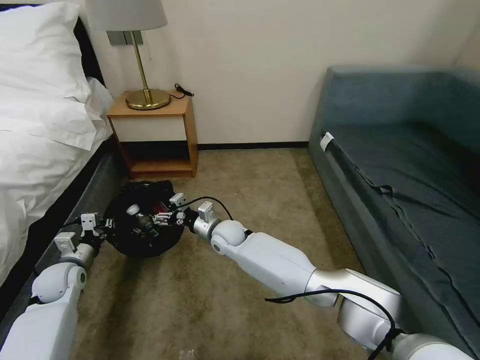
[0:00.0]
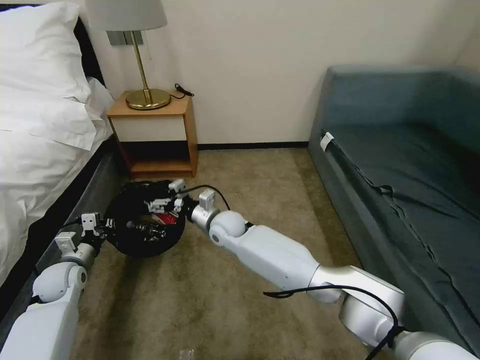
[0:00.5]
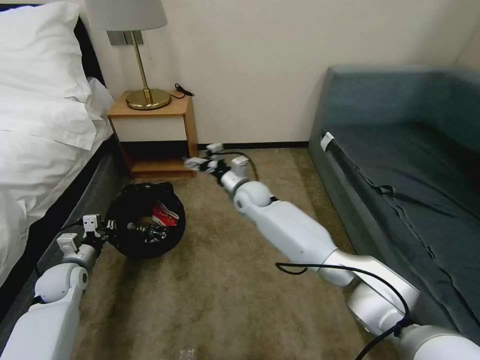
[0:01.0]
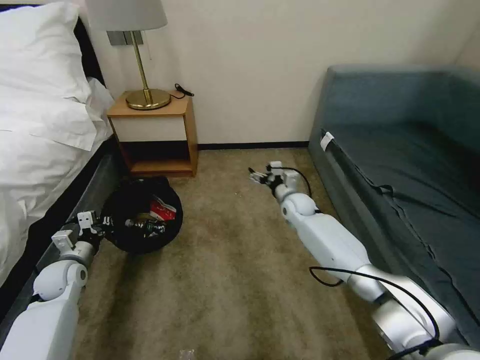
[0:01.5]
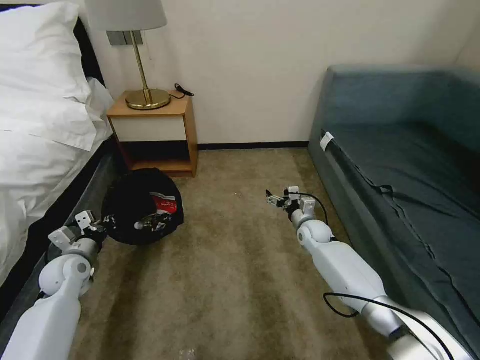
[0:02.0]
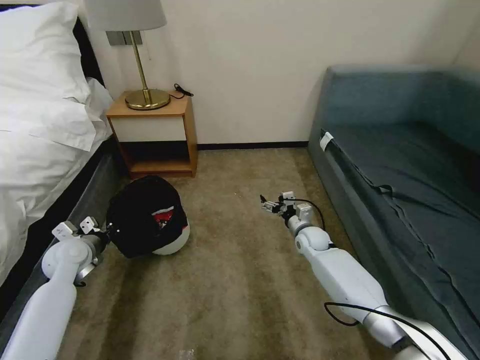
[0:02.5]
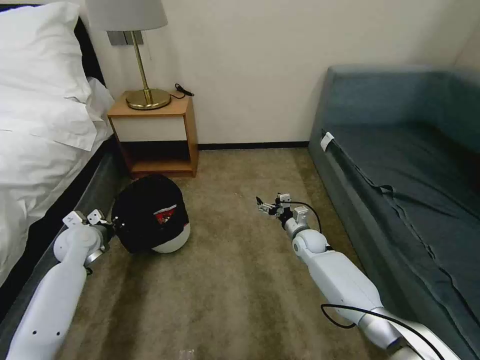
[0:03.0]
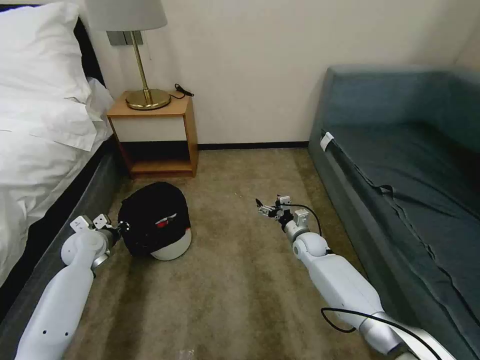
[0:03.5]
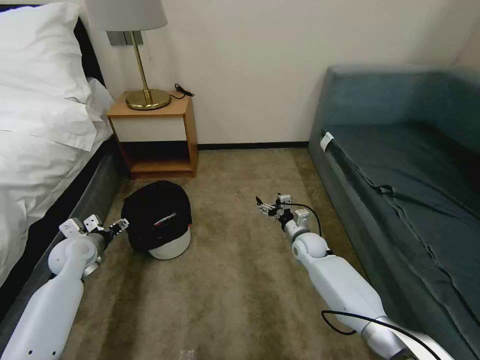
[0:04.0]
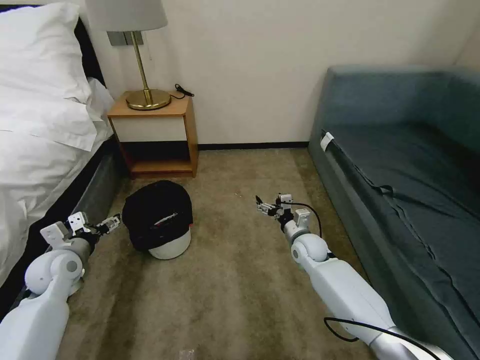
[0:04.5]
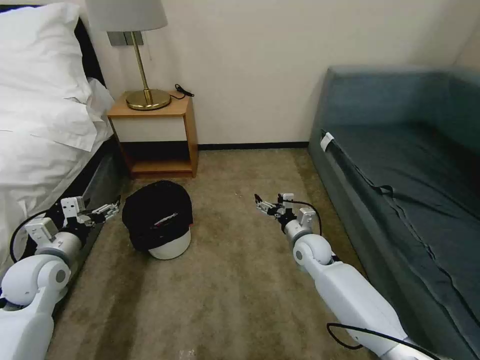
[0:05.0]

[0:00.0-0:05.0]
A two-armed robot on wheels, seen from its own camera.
Task of the whole recording: Pick up the trash bin, then pick up the garbage on the floor and place it into the trash bin.
0:00.0 to 0:02.5: The left gripper is displaced upward by roughly 5 cm, while the right gripper is displaced to the right by approximately 25 cm.
0:02.5 to 0:05.0: Both grippers move backward and upward, about 10 cm. The left gripper opens.

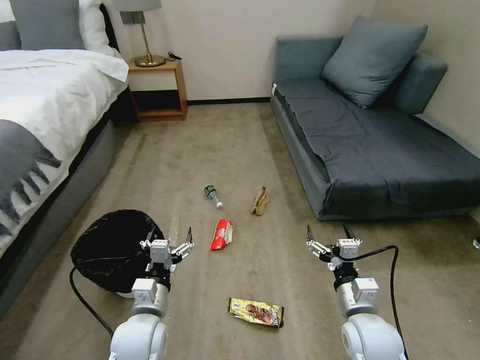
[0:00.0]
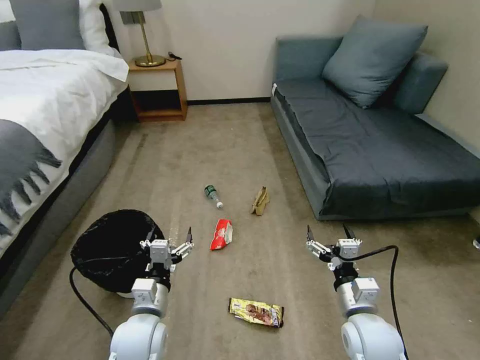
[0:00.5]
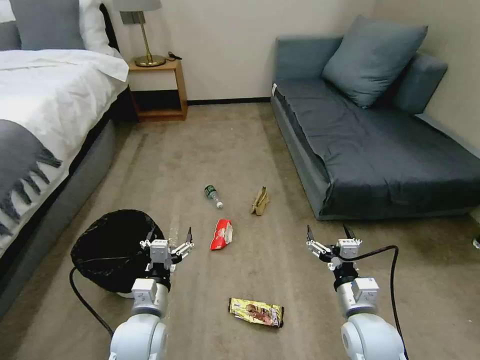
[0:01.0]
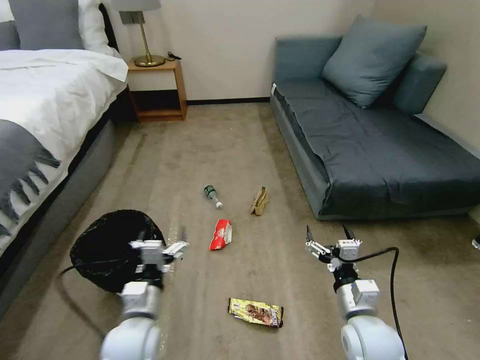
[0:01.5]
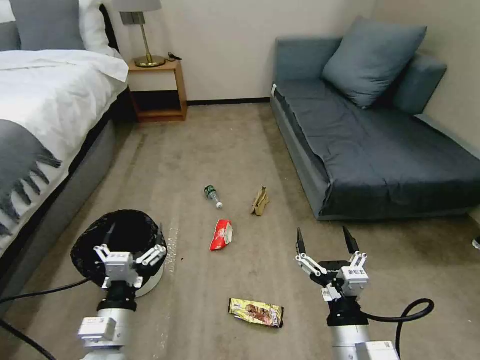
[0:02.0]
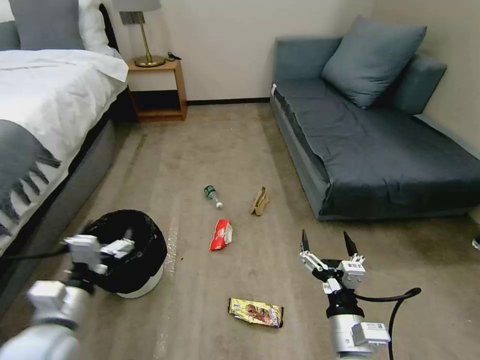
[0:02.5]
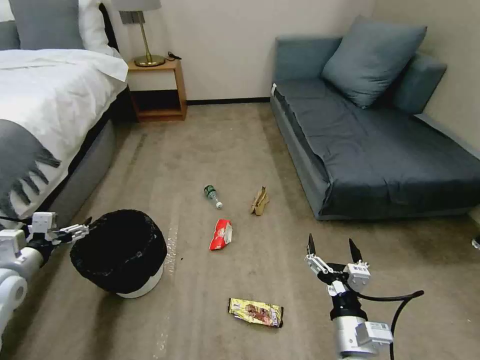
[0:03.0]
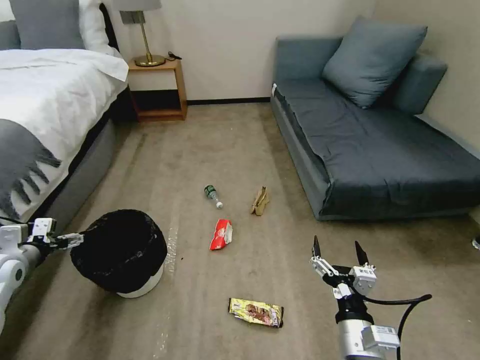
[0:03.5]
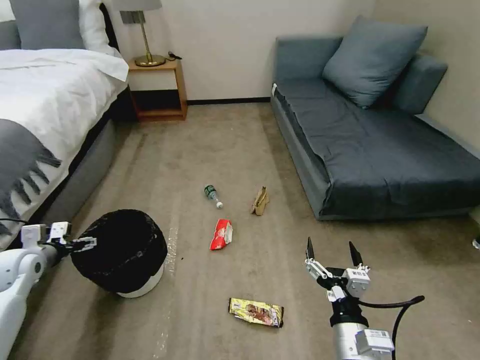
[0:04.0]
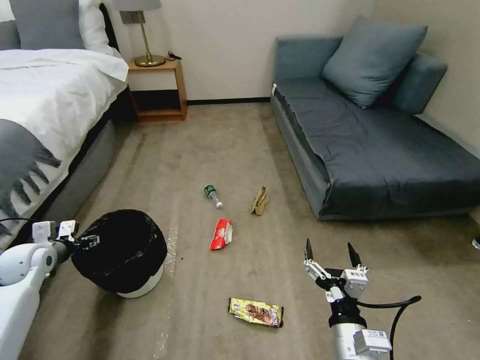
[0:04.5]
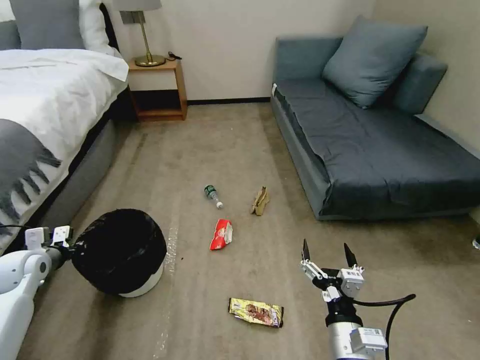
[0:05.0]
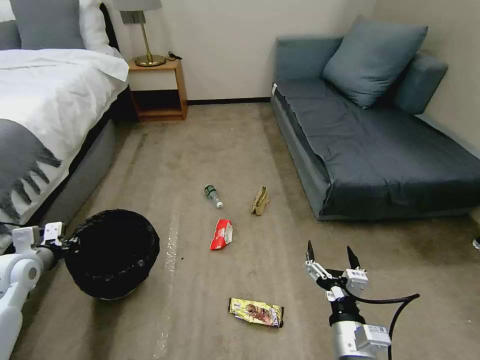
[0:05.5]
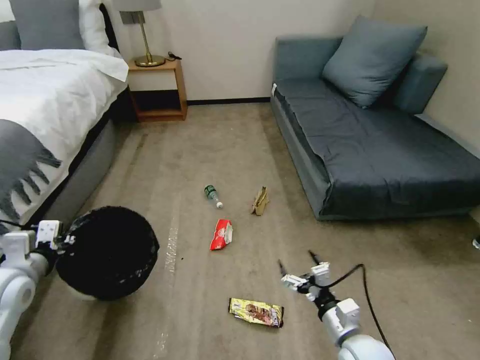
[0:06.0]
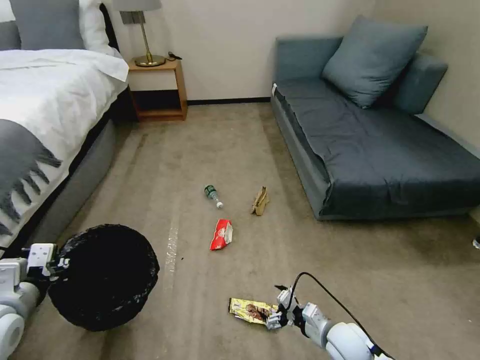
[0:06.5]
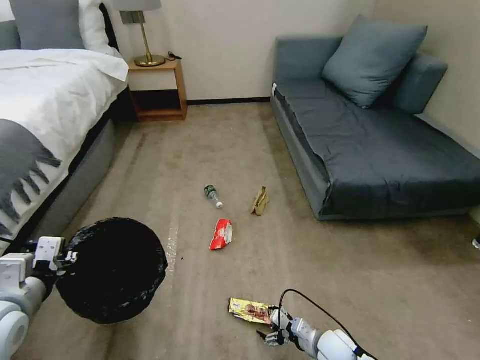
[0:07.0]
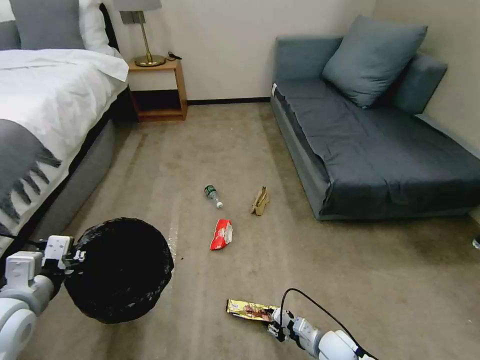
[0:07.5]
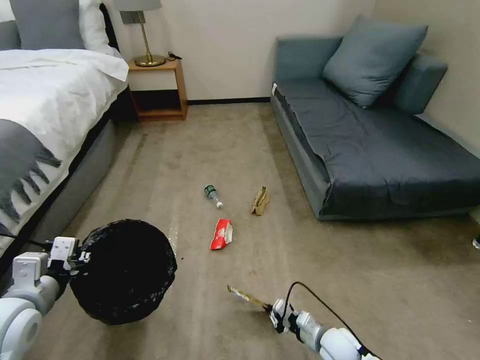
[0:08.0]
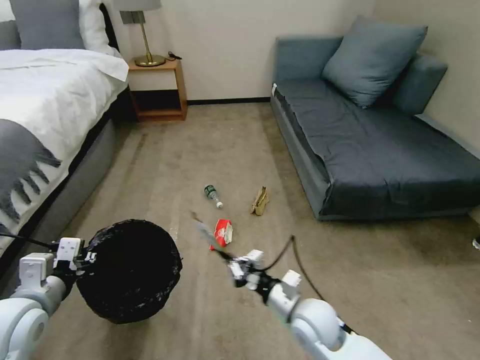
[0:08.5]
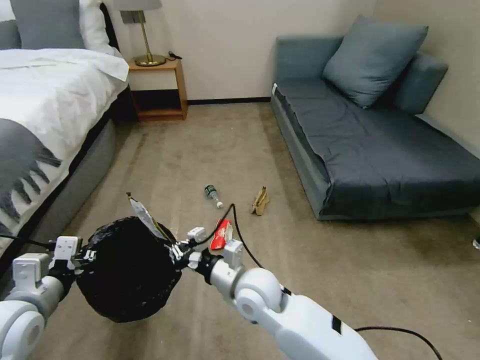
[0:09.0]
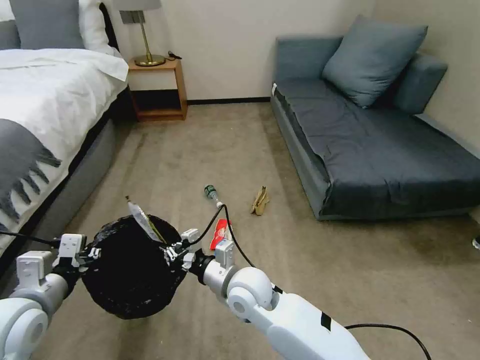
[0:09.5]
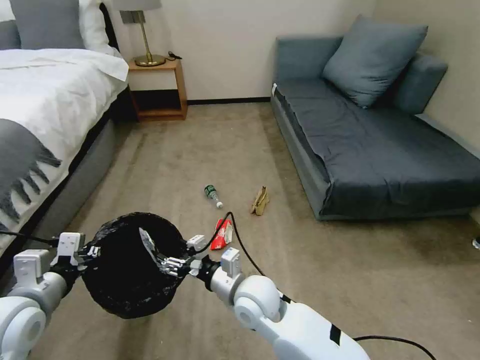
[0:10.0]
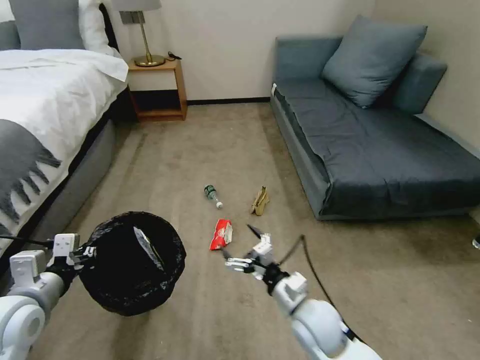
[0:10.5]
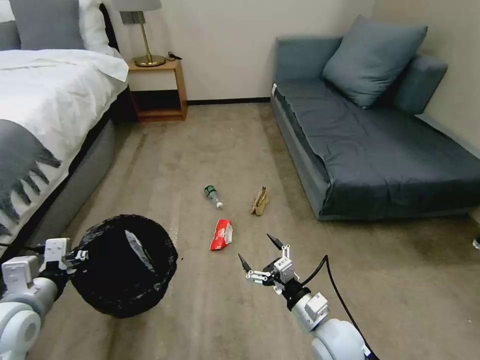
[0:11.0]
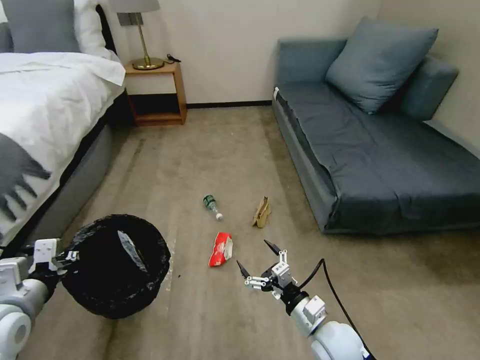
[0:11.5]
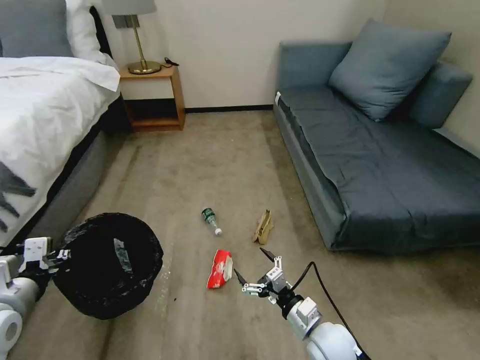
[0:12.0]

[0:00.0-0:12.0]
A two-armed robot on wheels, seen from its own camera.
Task of the whole recording: Pick up the trash bin, then pick up the garbage on the floor and place it into the trash bin.
0:02.0 to 0:04.0: The left gripper heads to the left and forward, covering some 35 cm.
0:04.0 to 0:06.0: The left gripper goes some 15 cm to the right, backward and upward, and closes its fingers. Meanwhile the right gripper shifts approximately 10 cm downward, forward and to the right.
0:06.0 to 0:08.0: The right gripper moves downward, about 15 cm, and closes its fingers; the left gripper travels to the right and backward by about 10 cm.
0:08.0 to 0:10.0: The right gripper heads to the left and upward, covering approximately 30 cm, and opens up.
0:10.0 to 0:12.0: The right gripper moves to the right, downward and backward, approximately 20 cm.

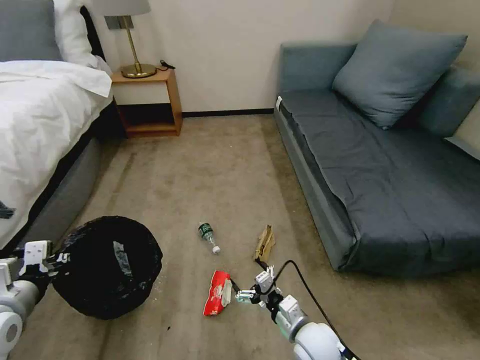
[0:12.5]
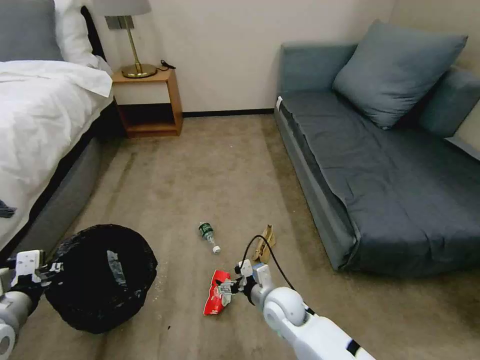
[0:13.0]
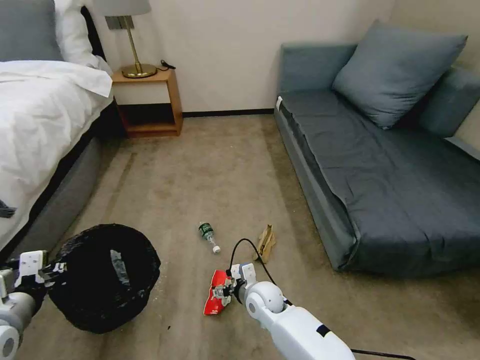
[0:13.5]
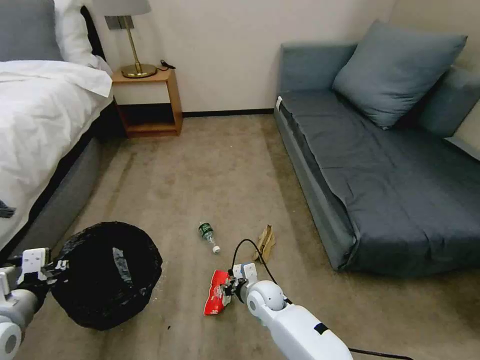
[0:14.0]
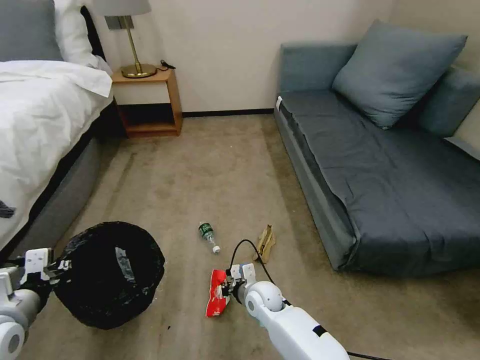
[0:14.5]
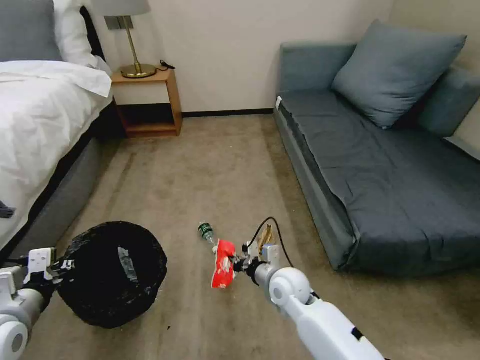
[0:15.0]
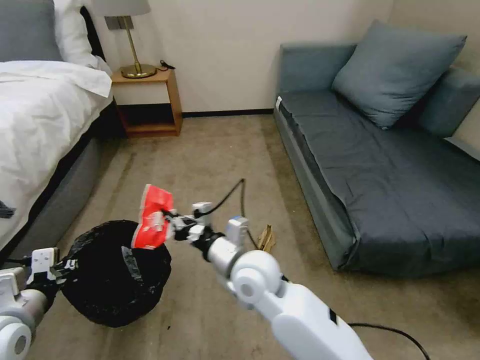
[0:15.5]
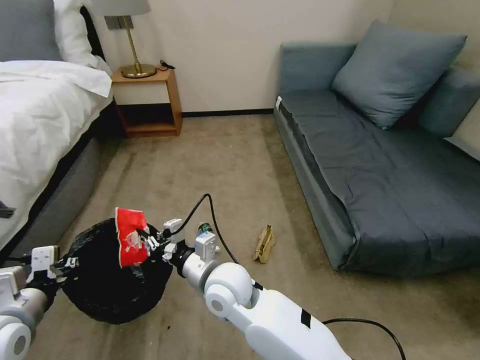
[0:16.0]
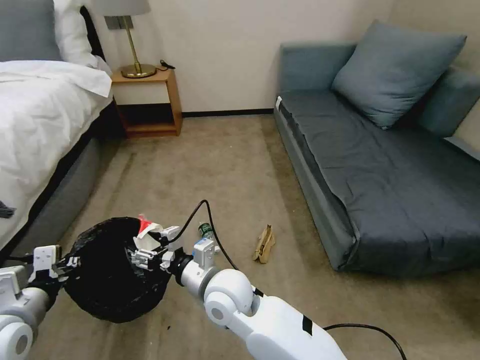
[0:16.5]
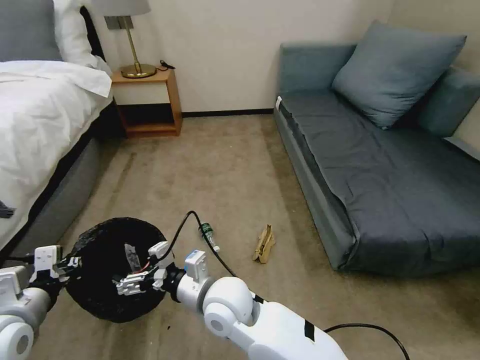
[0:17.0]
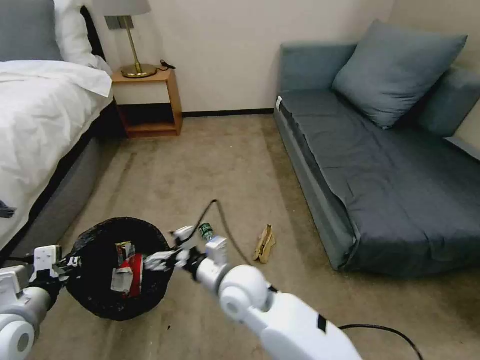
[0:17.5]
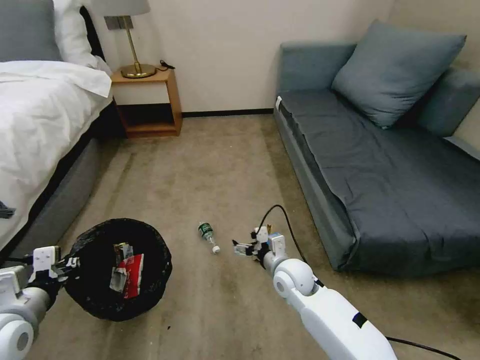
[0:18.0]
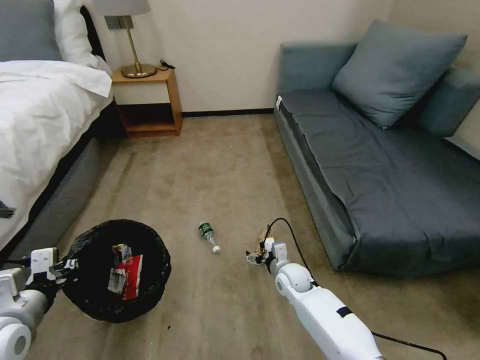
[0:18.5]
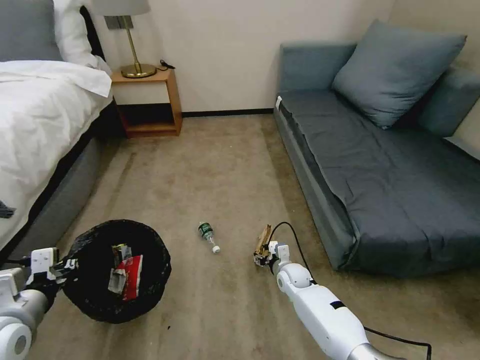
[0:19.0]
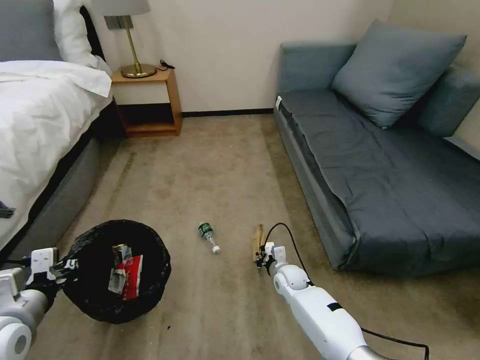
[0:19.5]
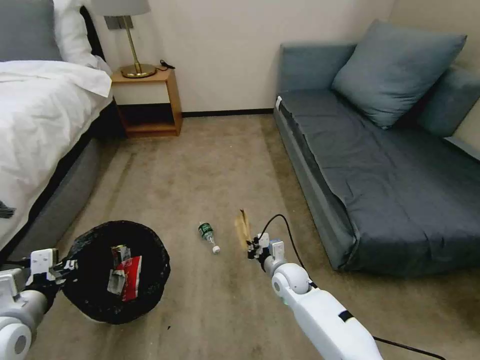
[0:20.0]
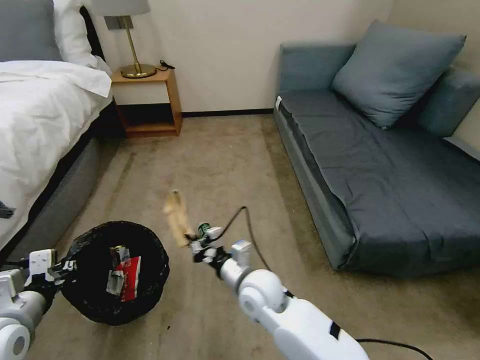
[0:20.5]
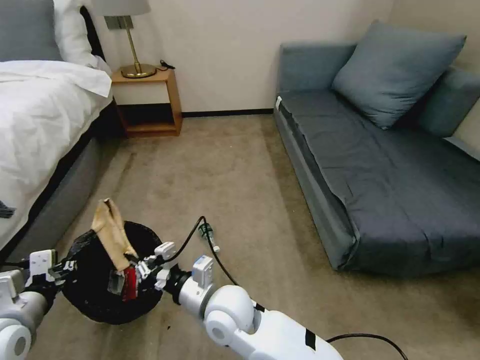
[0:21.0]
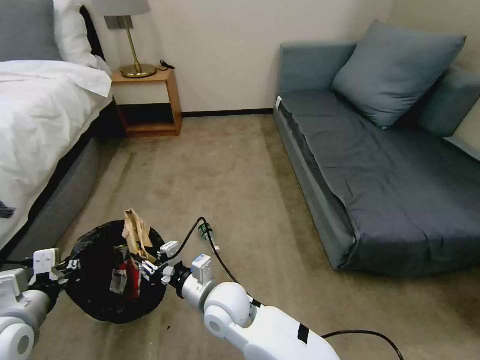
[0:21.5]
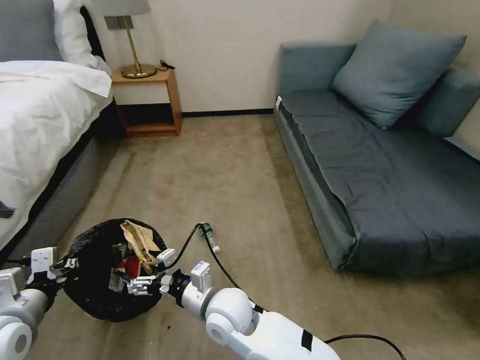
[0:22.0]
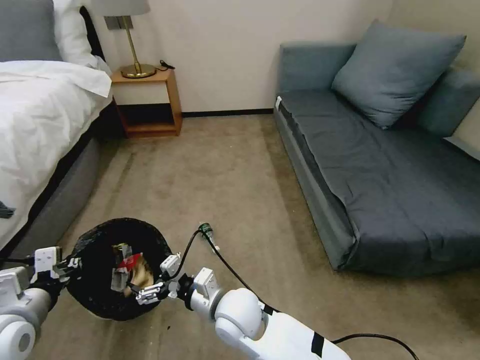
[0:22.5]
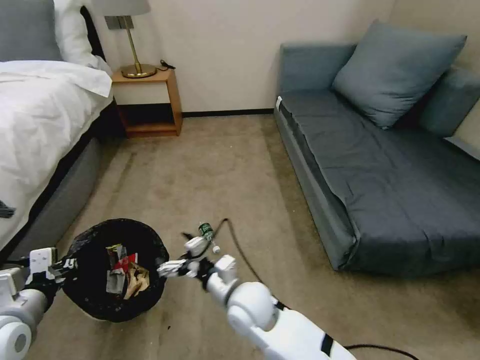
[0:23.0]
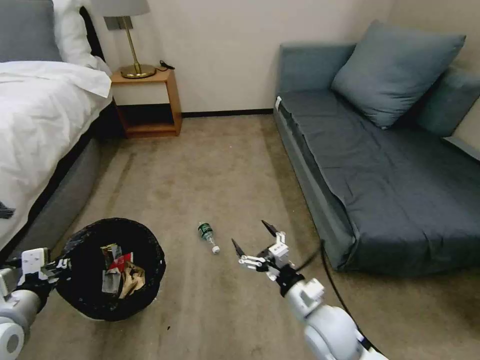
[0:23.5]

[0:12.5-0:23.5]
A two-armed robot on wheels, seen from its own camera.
Task of the whole recording: Pick up the trash bin, then pick up the garbage on the floor and place it into the trash bin.
0:12.5 to 0:14.5: The right gripper travels forward and to the left by roughly 15 cm, and closes its fingers.
0:14.5 to 0:16.0: The right gripper heads upward and to the left, covering about 20 cm.
0:16.0 to 0:18.0: The right gripper travels to the right and downward by roughly 20 cm, and opens its fingers.
0:18.0 to 0:20.0: The right gripper goes roughly 10 cm downward, and closes.
0:20.0 to 0:21.5: The right gripper shifts some 25 cm to the left, upward and backward.
0:21.5 to 0:23.5: The right gripper travels to the right by approximately 20 cm, and opens its fingers.
